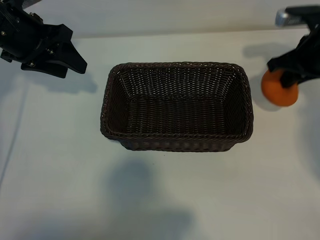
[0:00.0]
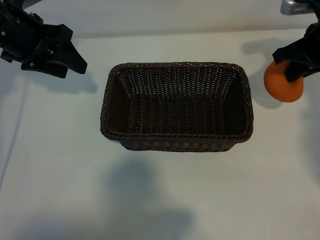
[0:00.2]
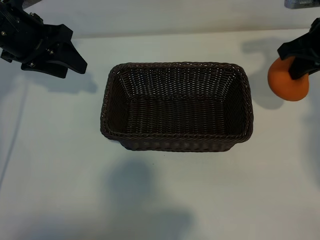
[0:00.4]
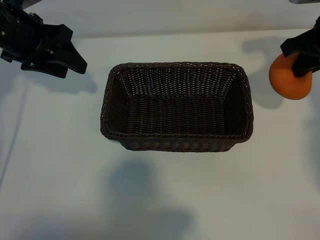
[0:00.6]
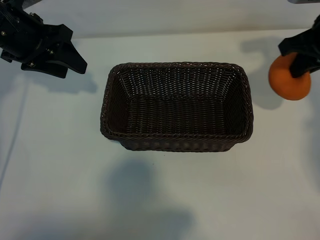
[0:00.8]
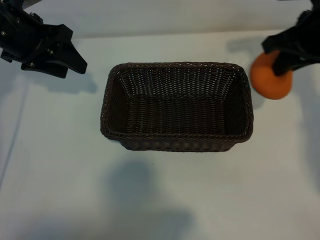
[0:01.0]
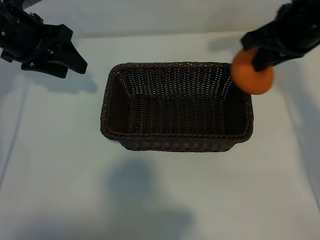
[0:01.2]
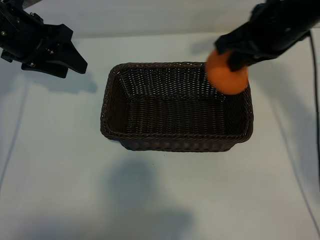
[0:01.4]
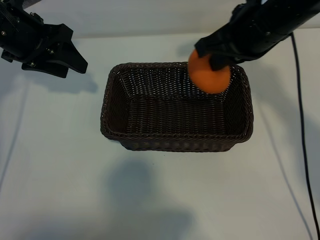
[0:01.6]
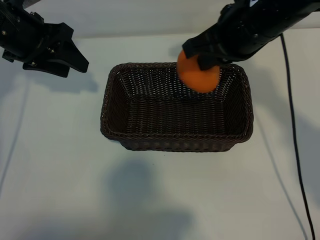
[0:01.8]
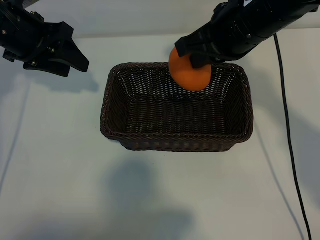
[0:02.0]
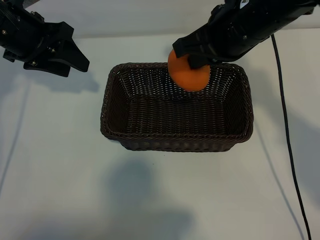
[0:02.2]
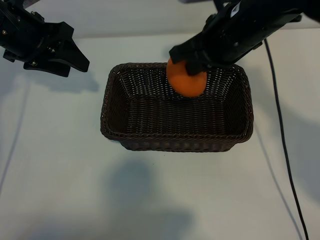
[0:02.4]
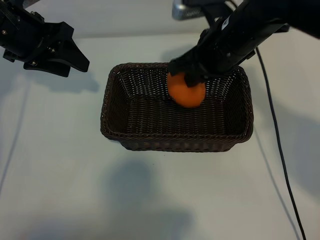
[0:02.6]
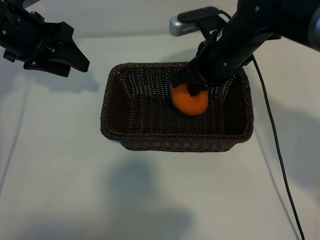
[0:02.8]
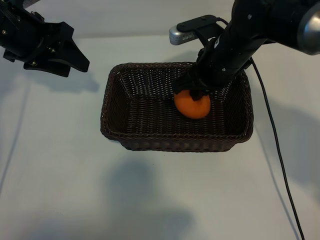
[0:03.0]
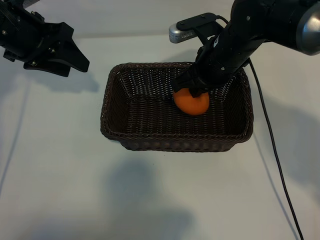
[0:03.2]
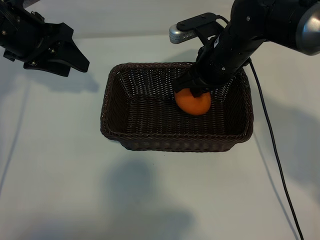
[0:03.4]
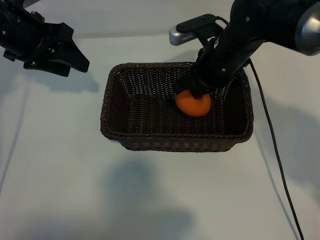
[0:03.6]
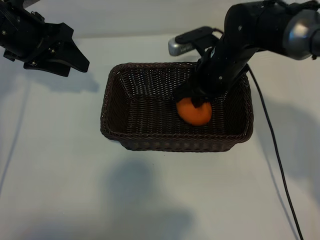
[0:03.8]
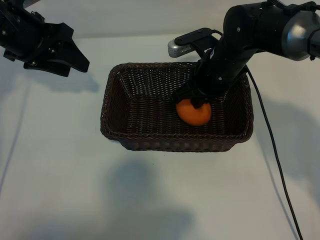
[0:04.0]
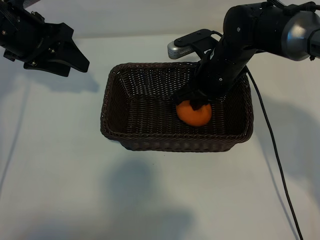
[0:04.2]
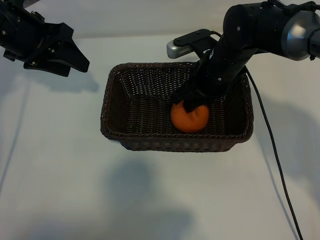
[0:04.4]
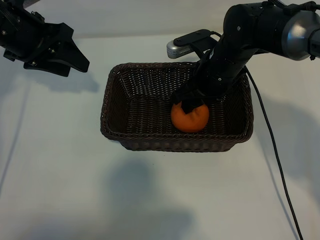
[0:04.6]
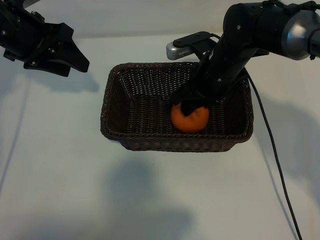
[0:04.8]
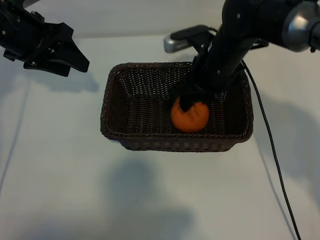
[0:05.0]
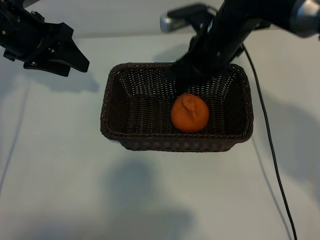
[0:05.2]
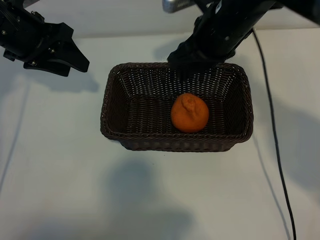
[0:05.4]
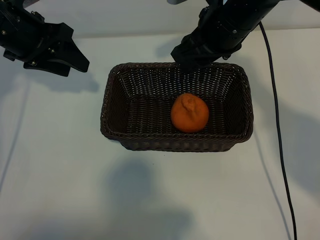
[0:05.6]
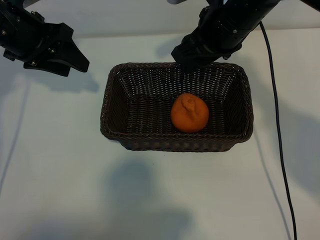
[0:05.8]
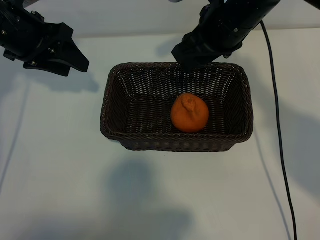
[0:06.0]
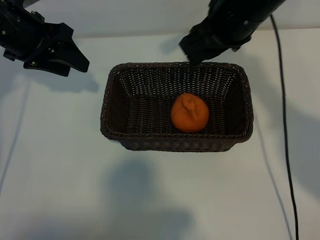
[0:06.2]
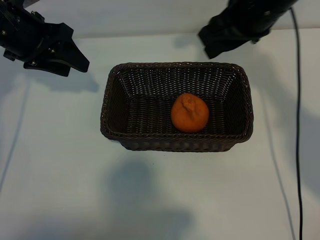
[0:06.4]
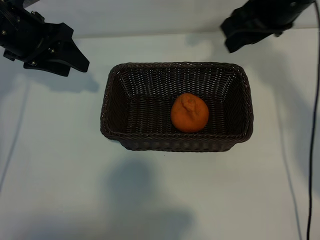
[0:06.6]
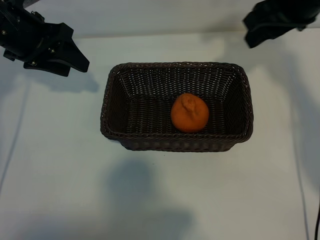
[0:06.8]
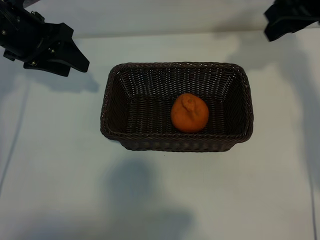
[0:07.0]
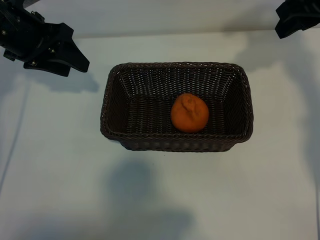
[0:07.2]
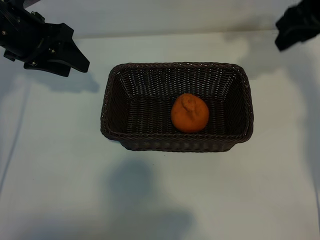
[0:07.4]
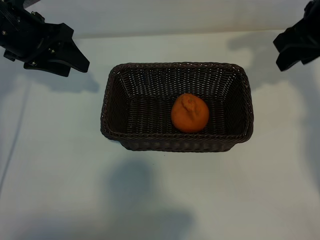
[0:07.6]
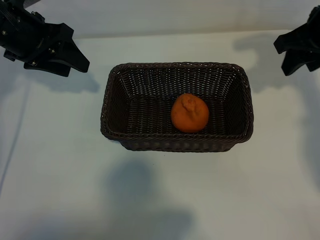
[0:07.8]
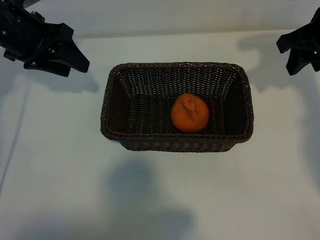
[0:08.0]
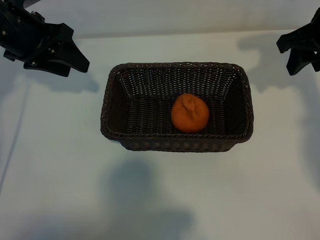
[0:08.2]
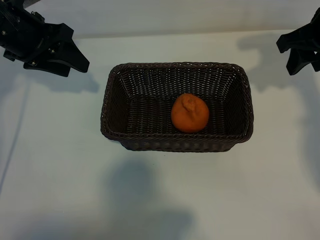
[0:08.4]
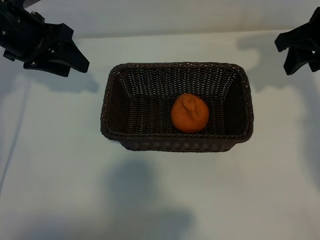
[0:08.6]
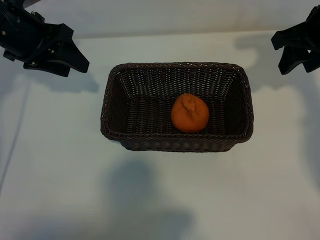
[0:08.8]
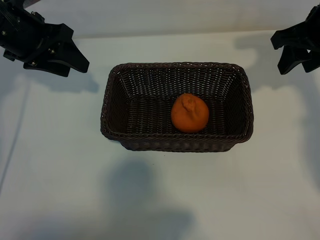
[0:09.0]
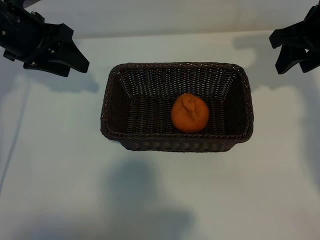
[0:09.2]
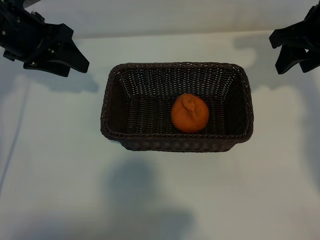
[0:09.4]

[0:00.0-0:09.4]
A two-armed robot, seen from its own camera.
Task of the whole recording: pick up the orange and put it into the basket.
Step, 0:00.0 to 0:04.4: Place the orange in the basket with right gripper.
